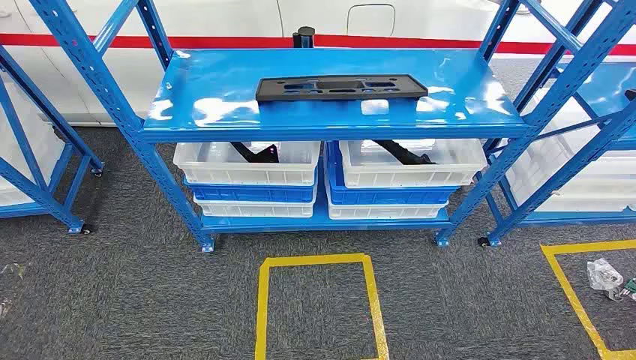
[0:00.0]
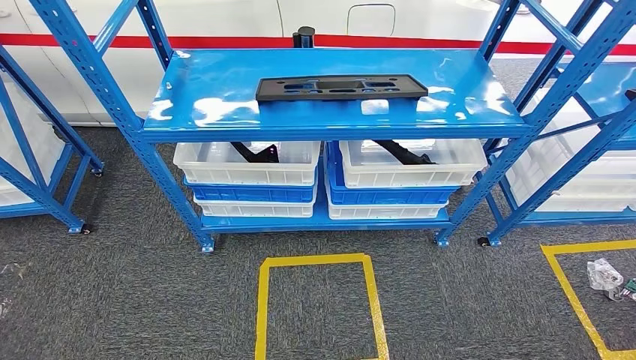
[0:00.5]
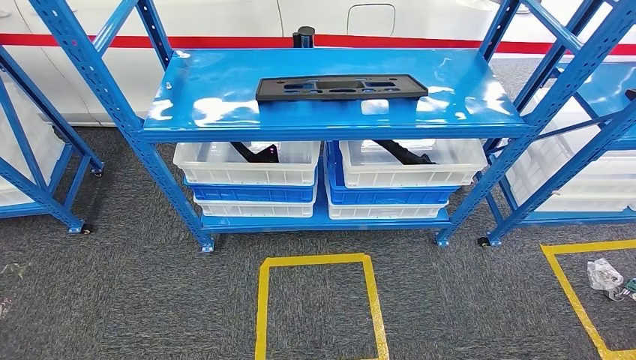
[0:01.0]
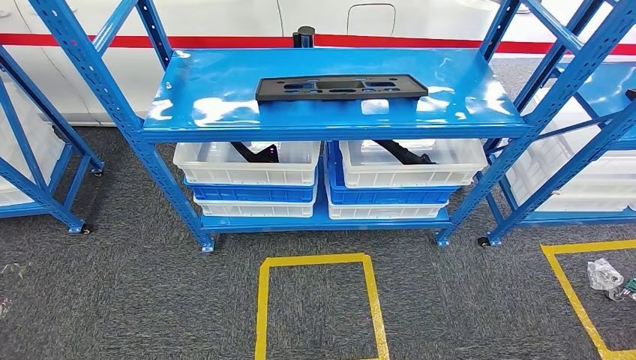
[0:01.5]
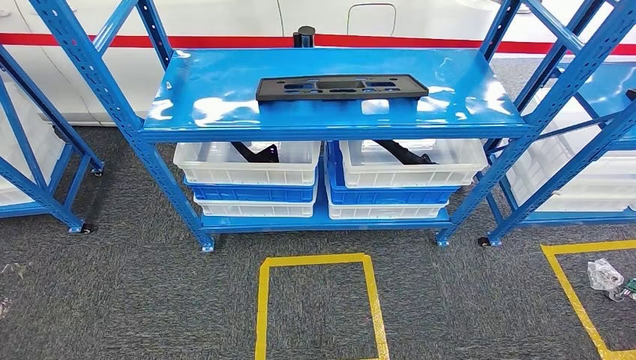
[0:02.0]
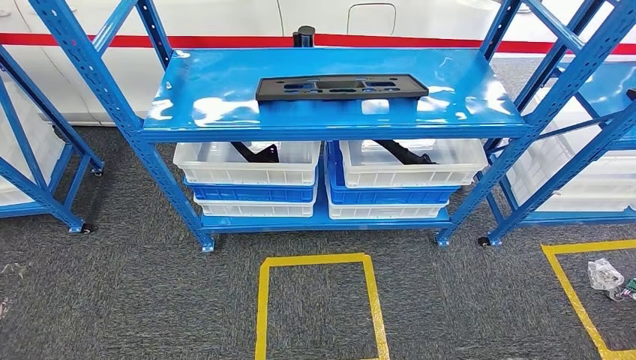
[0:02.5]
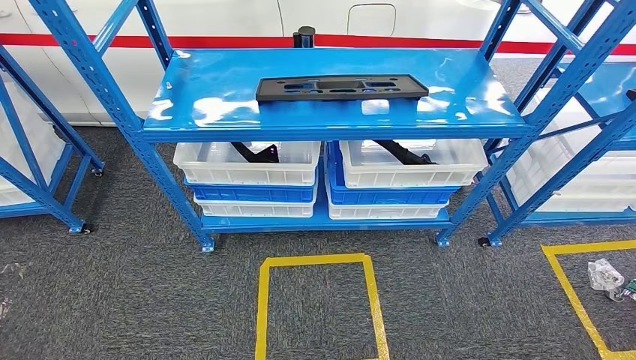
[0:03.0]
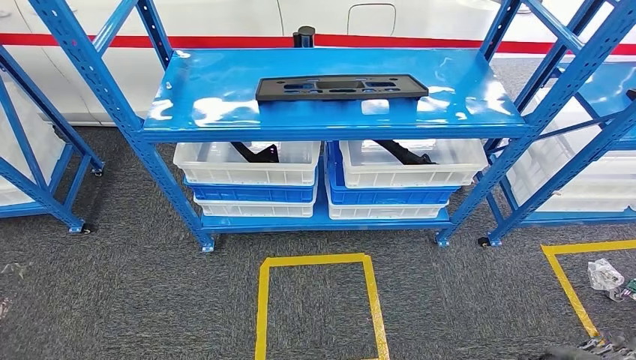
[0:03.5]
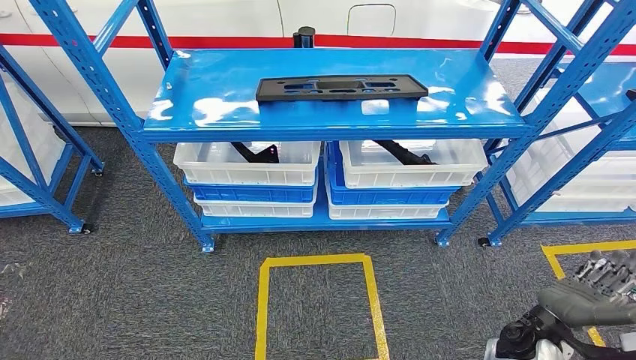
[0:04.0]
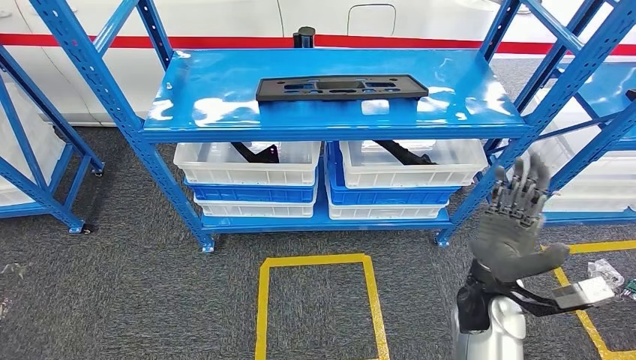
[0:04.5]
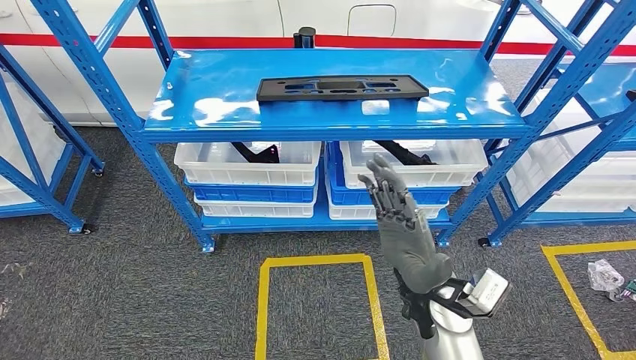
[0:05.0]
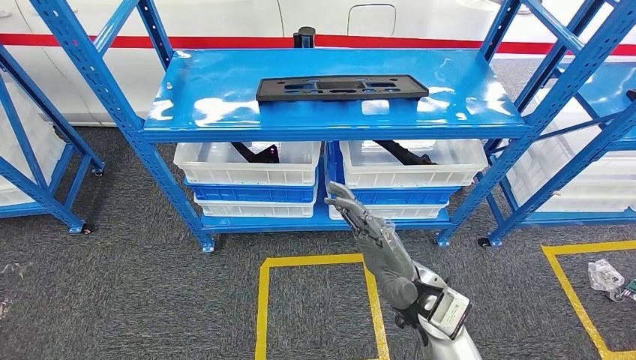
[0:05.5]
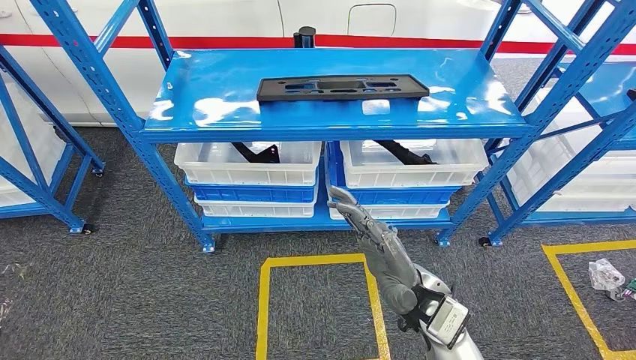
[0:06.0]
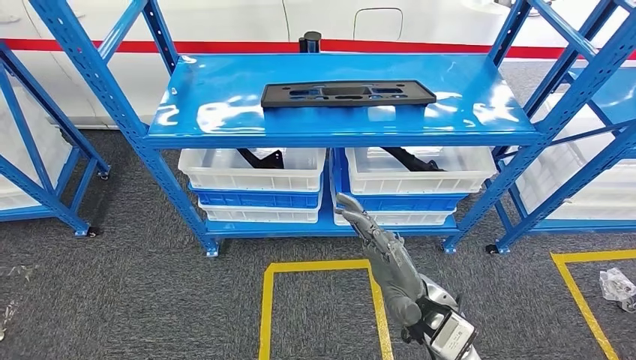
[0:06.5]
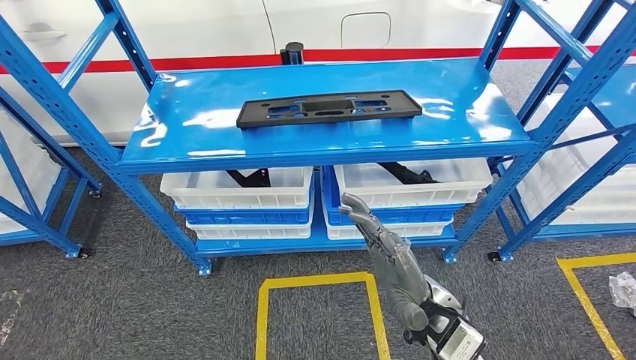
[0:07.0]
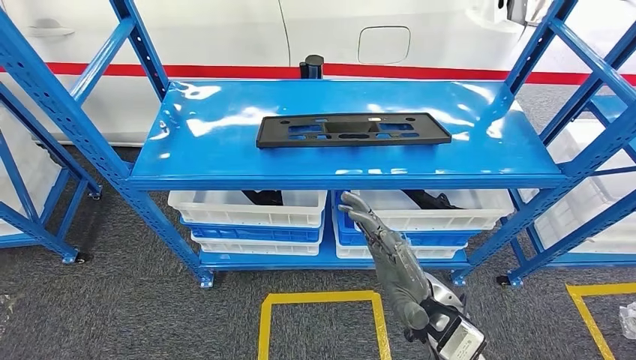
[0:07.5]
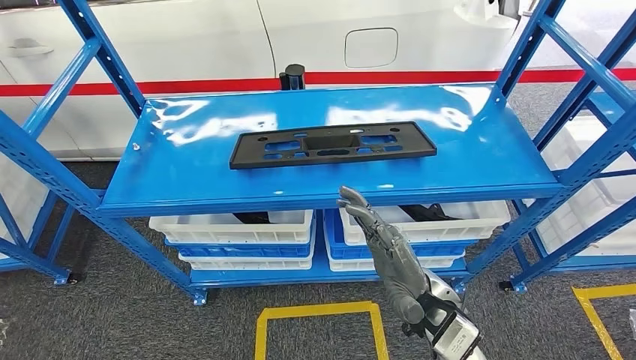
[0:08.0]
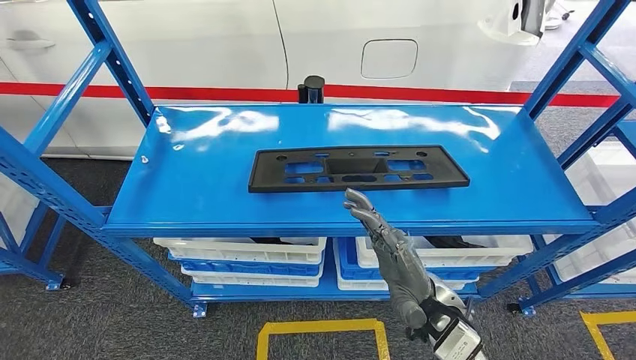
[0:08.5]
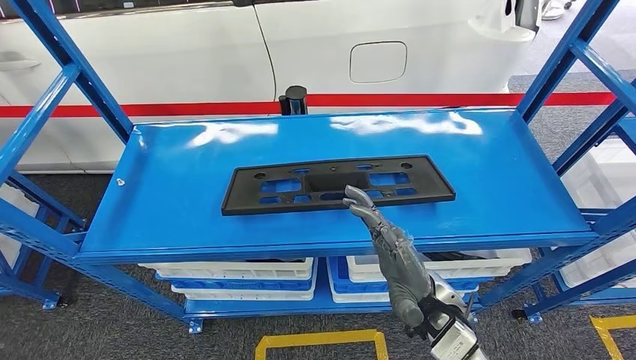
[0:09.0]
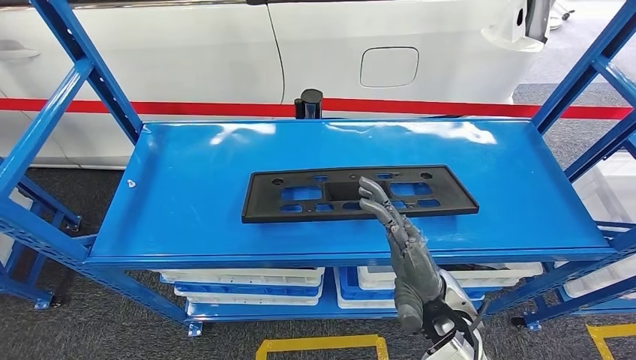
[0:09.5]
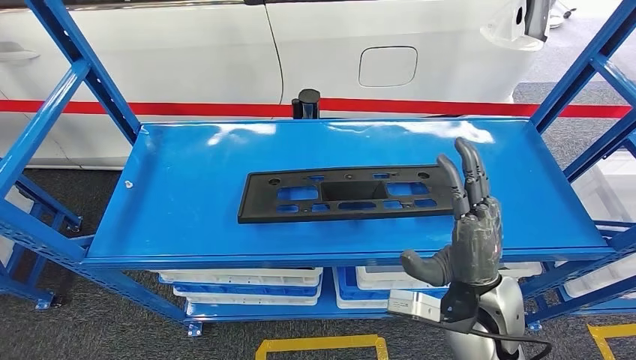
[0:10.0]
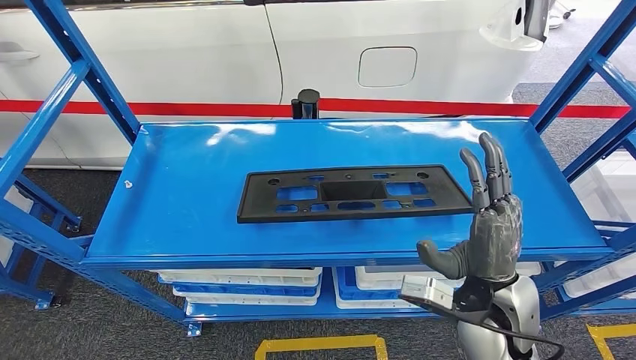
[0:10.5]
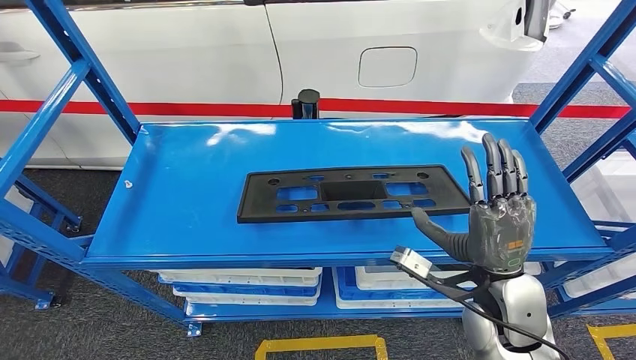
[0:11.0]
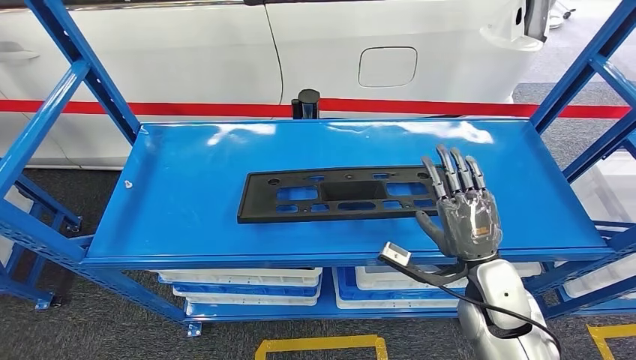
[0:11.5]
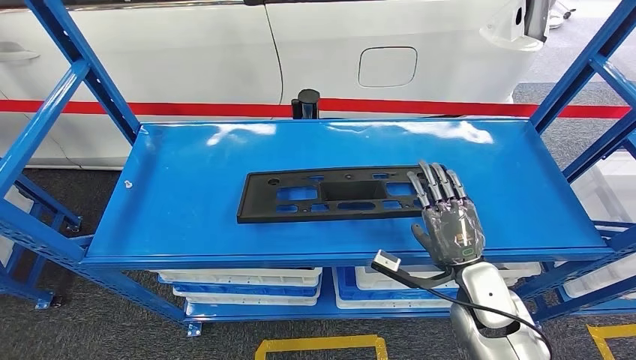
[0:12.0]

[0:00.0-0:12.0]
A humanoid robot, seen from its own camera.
0:02.0 to 0:04.0: The right hand moves upward, forward and to the right, some 25 cm.
0:04.0 to 0:06.0: The right hand moves to the left and upward, approximately 20 cm.
0:10.0 to 0:12.0: The right hand heads downward, covering some 5 cm.

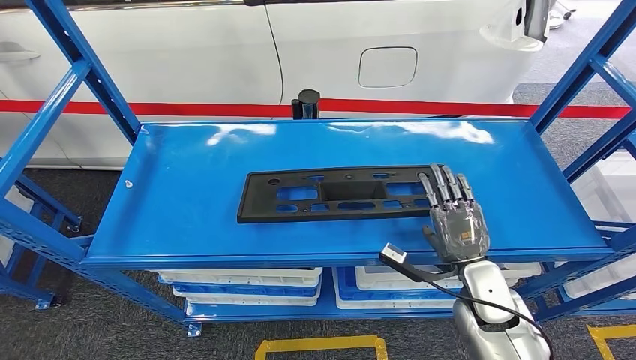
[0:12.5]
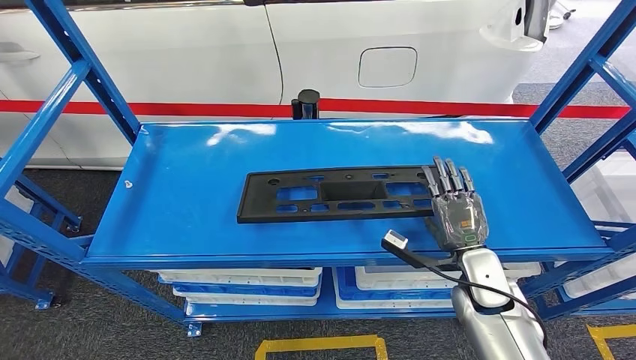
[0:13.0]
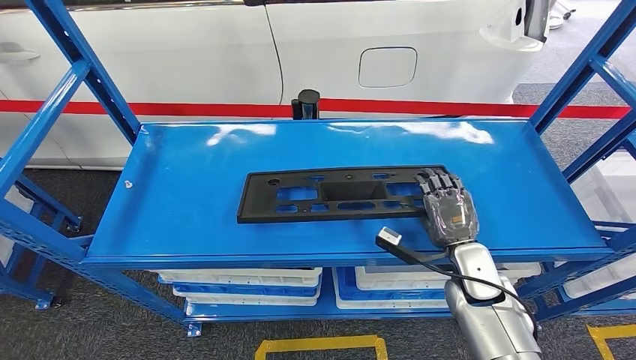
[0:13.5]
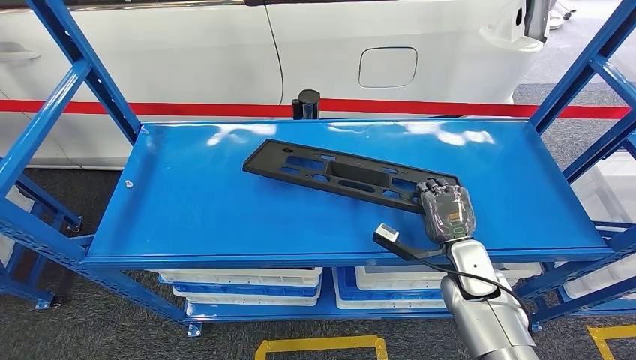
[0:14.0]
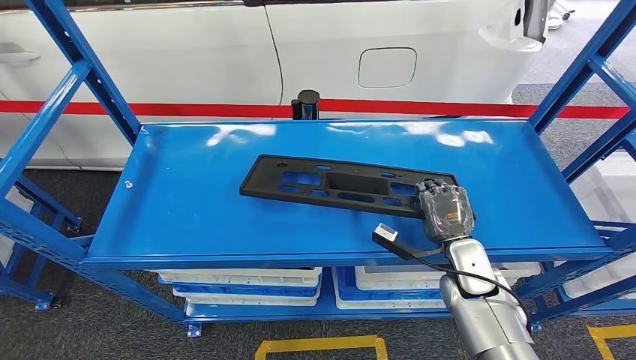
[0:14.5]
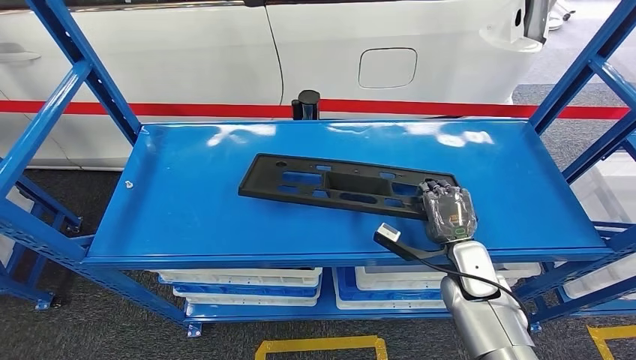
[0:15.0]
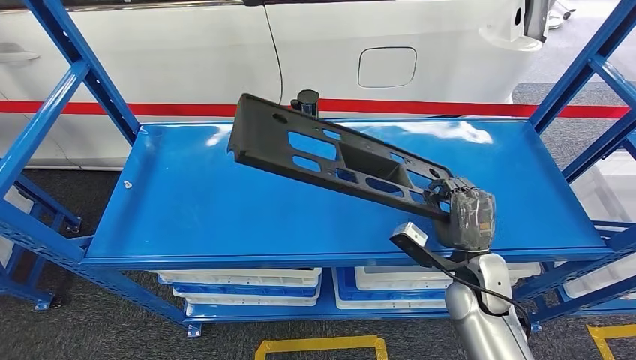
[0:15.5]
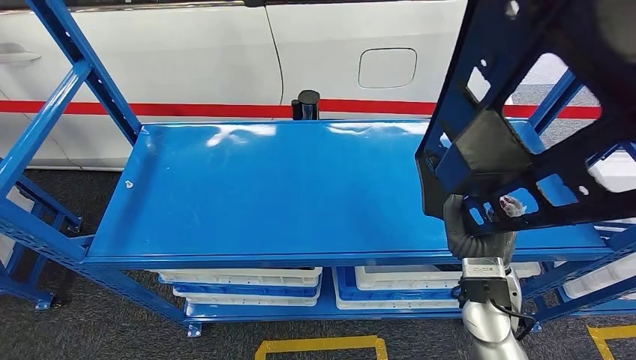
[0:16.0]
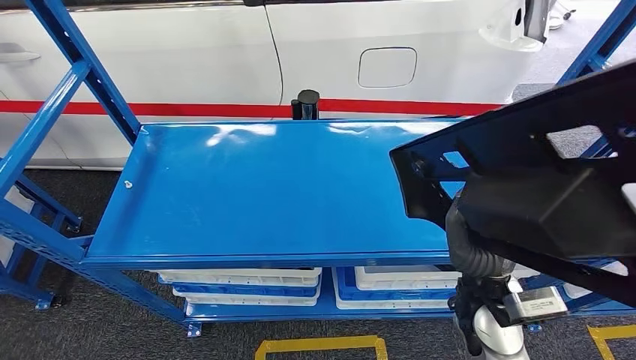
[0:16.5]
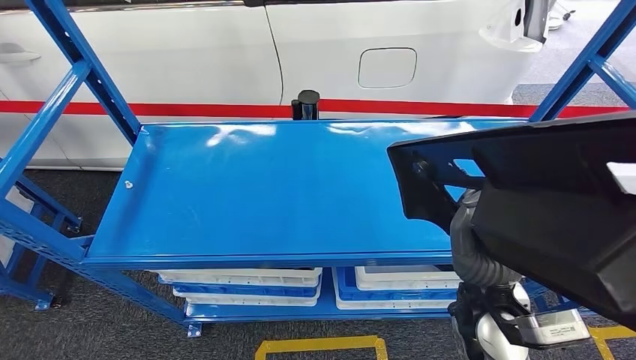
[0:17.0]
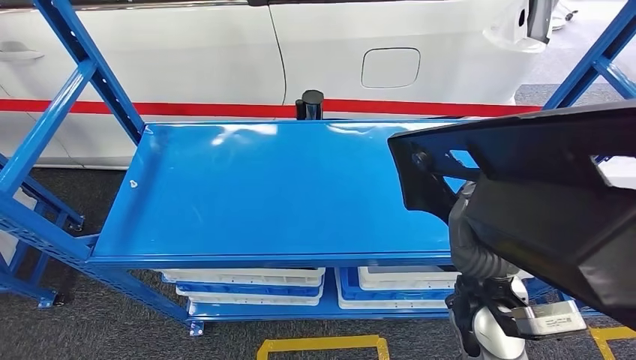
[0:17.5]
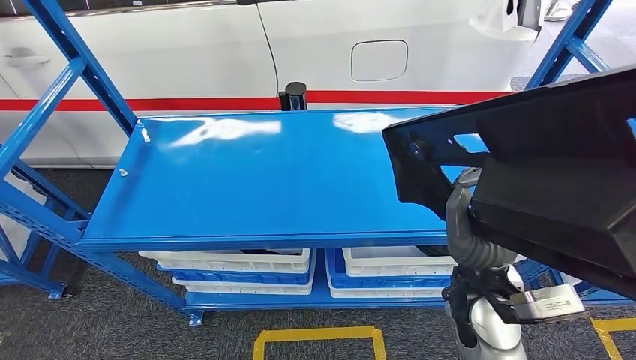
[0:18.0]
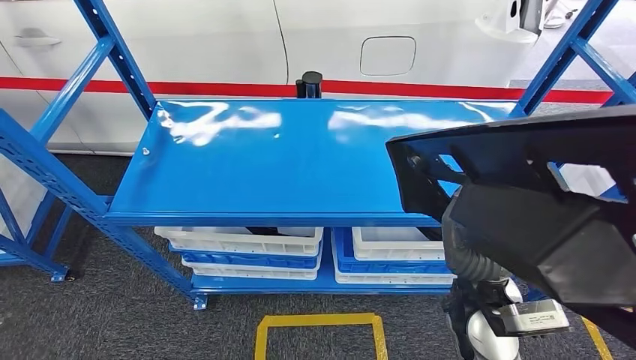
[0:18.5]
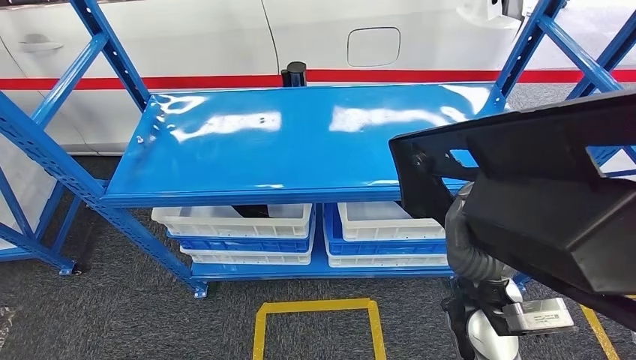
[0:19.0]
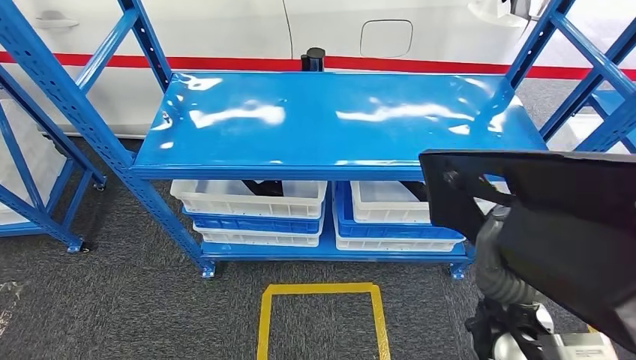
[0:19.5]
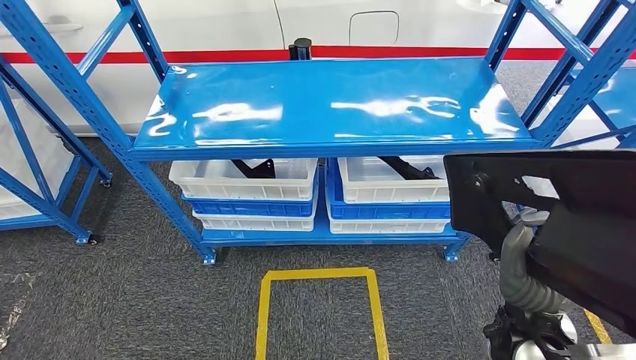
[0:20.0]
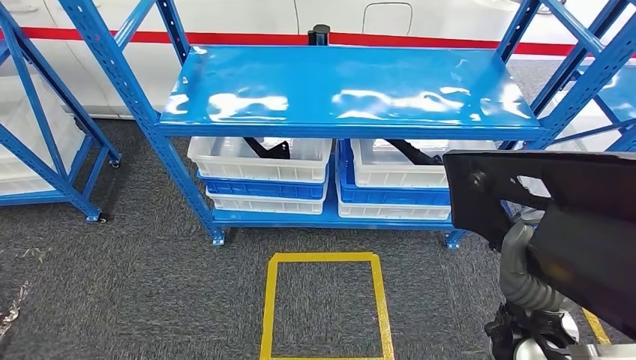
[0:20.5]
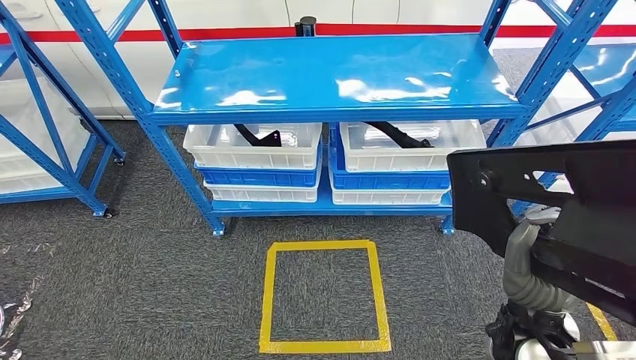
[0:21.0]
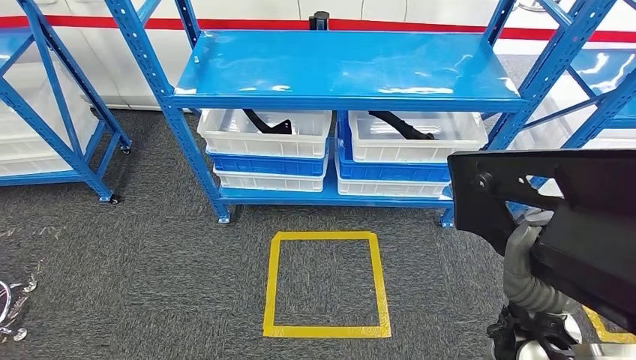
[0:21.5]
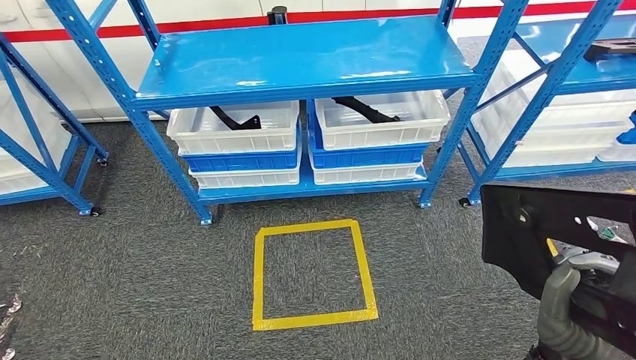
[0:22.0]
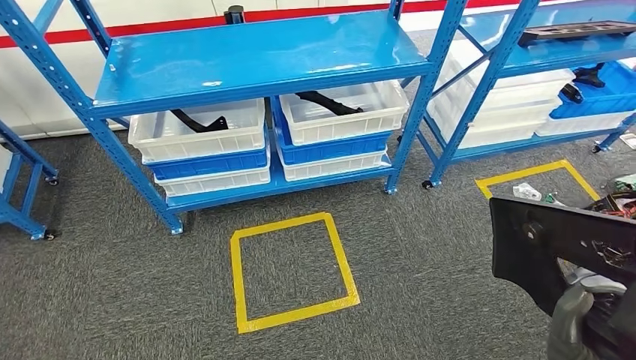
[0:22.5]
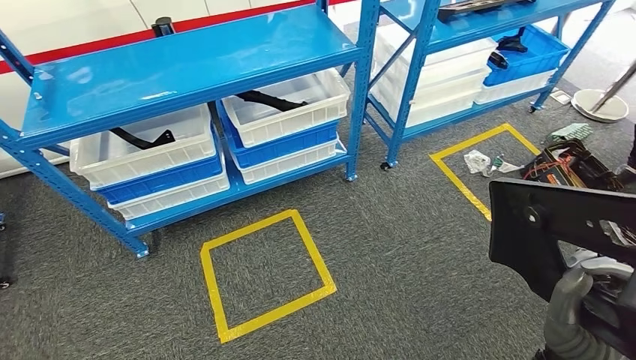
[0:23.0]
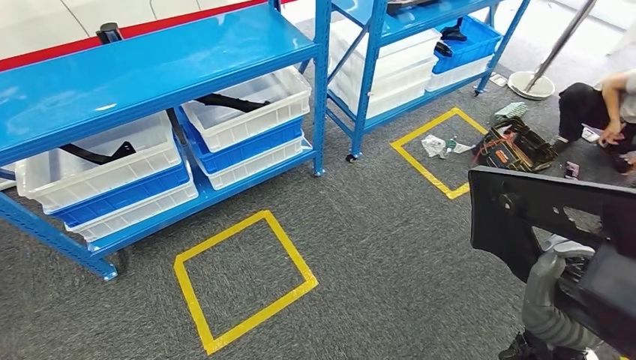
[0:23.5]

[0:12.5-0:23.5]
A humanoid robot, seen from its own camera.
Step, 0:12.5 to 0:15.0: Pick up the large material from the shelf.
0:12.5 to 0:14.5: The hands stay close to where they were, moving slightly.
